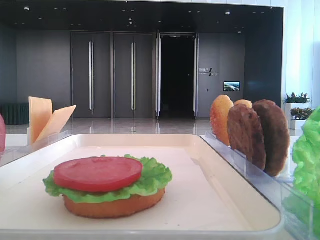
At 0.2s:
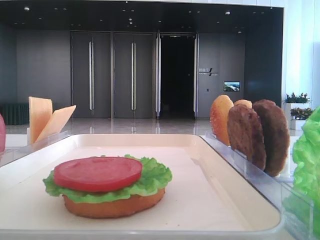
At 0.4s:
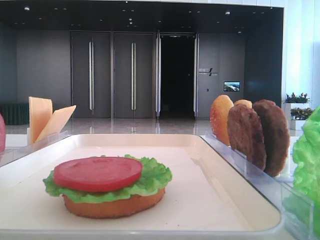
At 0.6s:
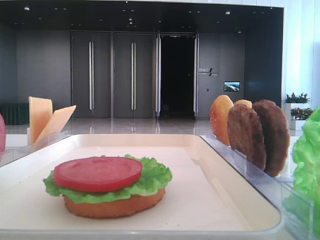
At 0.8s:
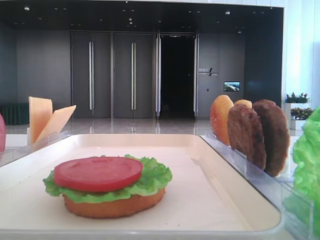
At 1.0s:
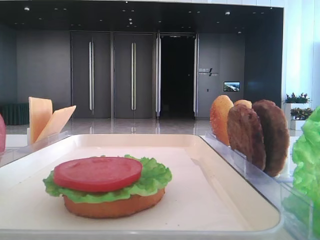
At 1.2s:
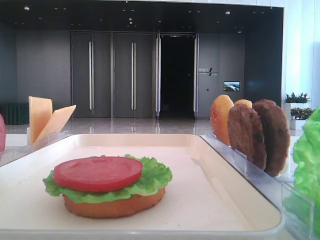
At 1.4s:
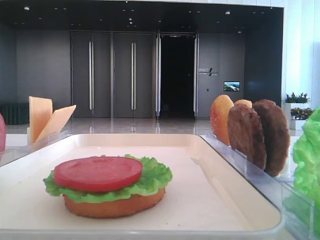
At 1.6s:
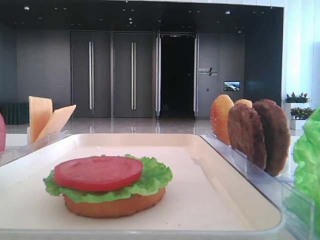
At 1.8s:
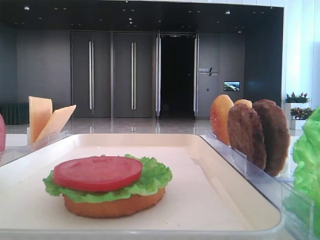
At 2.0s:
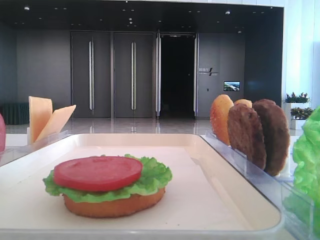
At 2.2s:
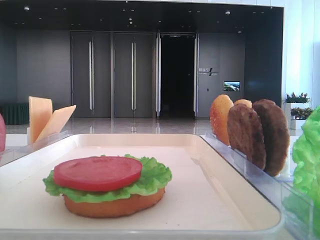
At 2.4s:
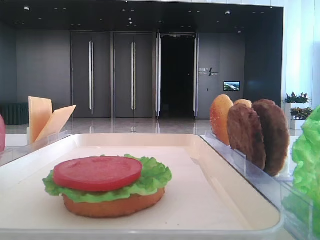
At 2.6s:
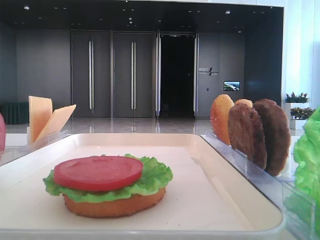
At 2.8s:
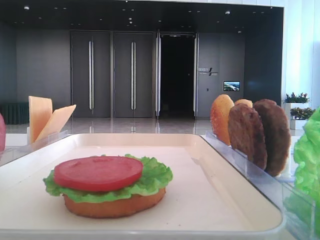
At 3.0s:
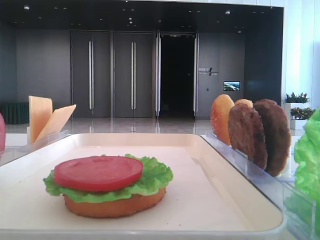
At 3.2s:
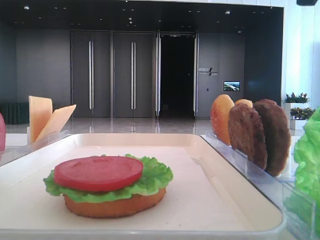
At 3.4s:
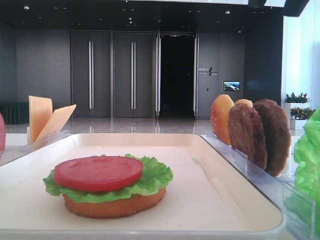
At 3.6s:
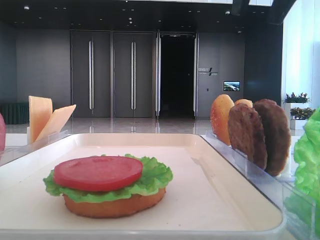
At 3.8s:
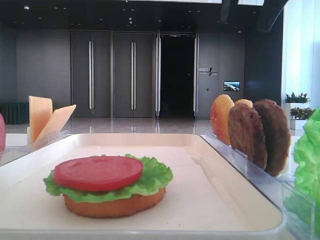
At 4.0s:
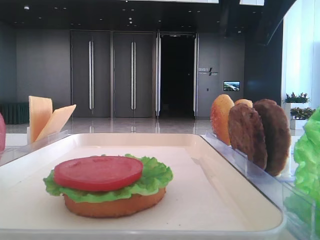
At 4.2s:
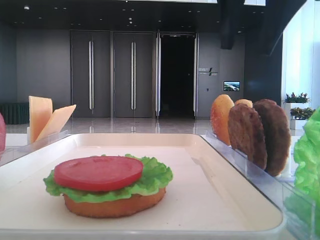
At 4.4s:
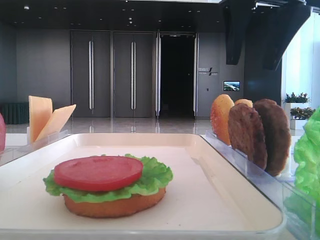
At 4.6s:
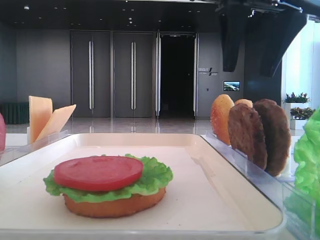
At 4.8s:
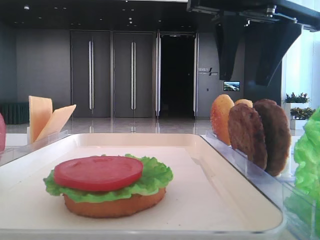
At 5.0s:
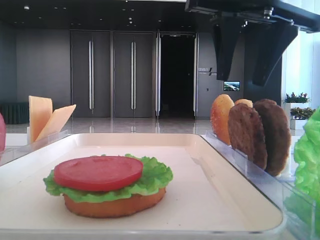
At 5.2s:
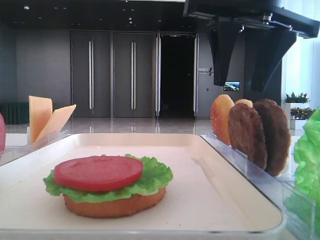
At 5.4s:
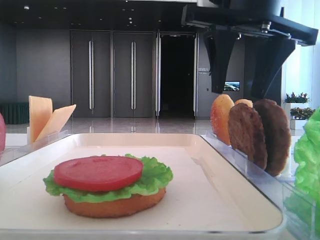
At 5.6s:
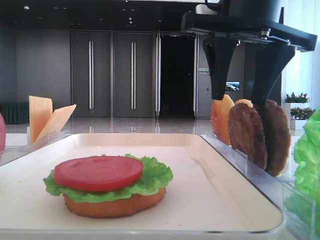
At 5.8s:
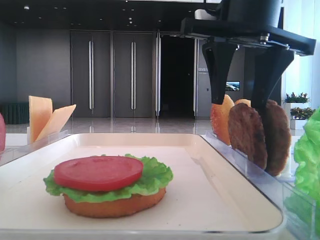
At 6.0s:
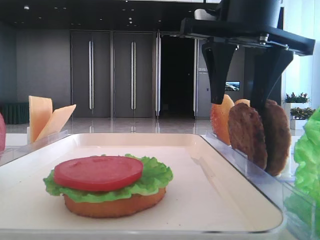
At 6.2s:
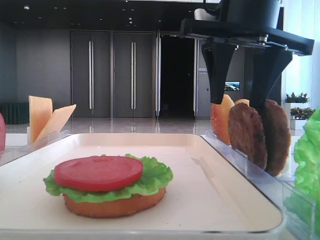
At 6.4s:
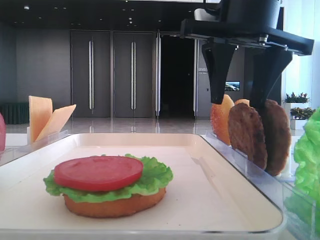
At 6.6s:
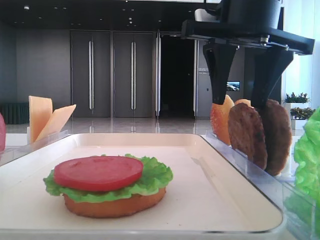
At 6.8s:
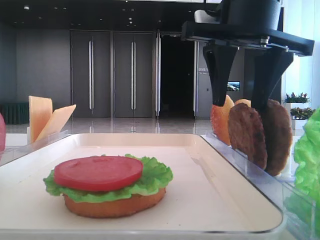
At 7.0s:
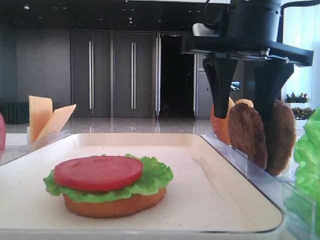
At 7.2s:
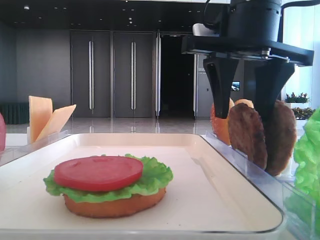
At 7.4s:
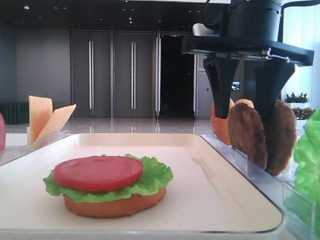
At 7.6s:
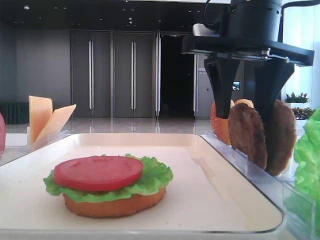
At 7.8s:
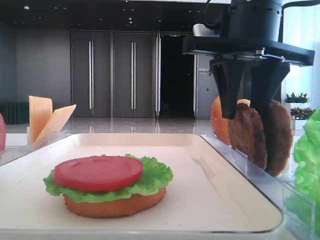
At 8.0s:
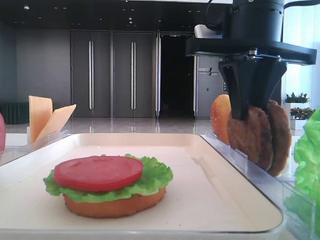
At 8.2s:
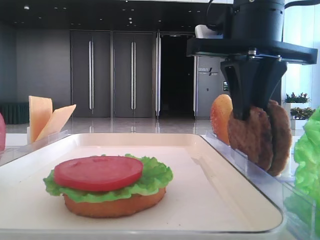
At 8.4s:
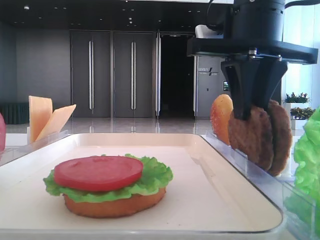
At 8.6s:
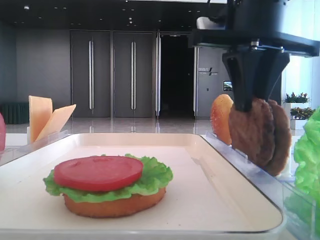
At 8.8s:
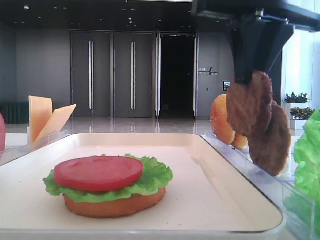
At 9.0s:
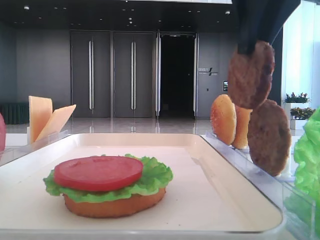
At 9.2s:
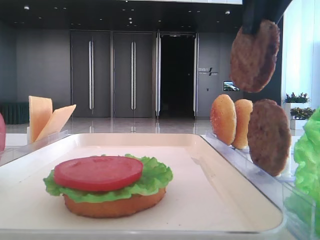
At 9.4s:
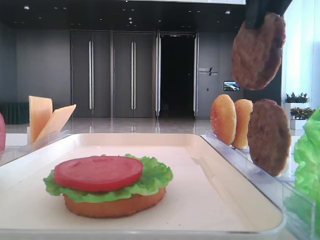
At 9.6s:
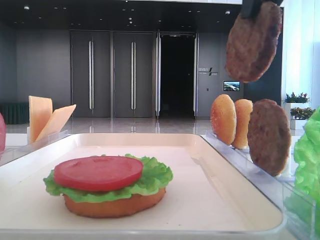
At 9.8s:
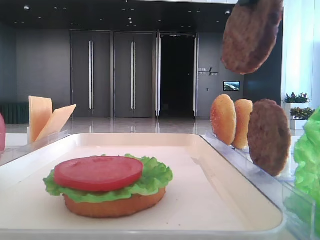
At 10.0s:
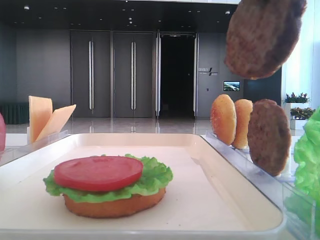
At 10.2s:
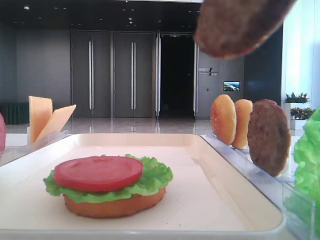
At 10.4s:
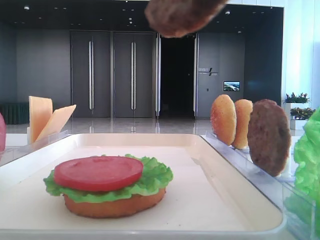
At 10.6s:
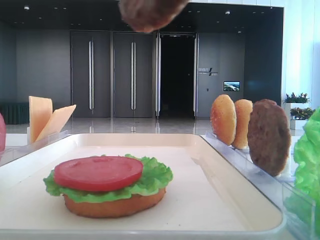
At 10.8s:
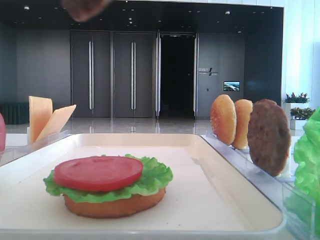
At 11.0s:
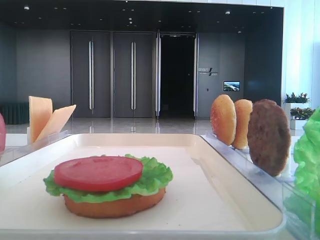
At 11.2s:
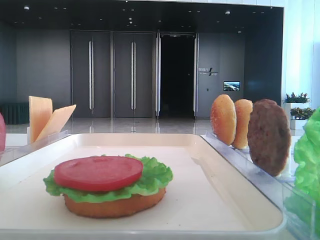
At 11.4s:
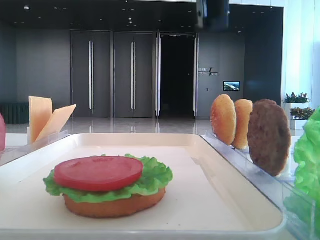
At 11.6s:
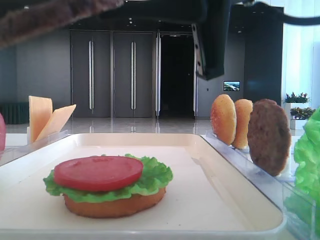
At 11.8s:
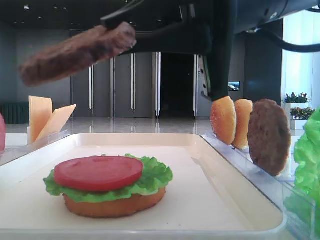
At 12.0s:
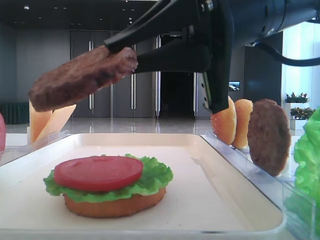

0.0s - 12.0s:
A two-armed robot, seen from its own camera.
Step, 0.0s - 8.2s: Grab the patty with the right hand.
3.0s - 4.4s: The right gripper travels forward and downward by roughly 10 cm.
4.4s - 6.0s: There are only small adjustments of the grippers.
6.0s - 7.6s: There are only small adjustments of the grippers.
7.6s - 9.0s: The right gripper shifts some 10 cm upward, and closes up.
9.0s - 10.4s: The right gripper heads backward, covering some 15 cm.
10.4s - 12.0s: The right gripper heads downward and forward, covering roughly 20 cm.

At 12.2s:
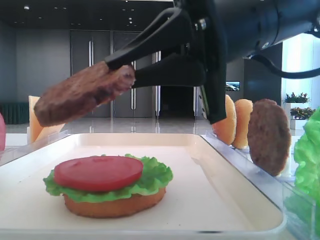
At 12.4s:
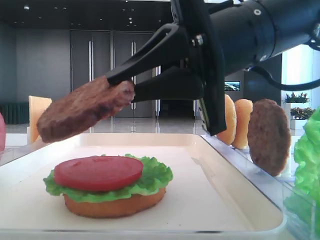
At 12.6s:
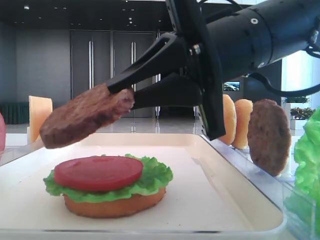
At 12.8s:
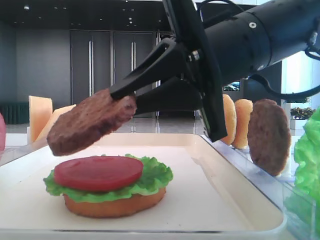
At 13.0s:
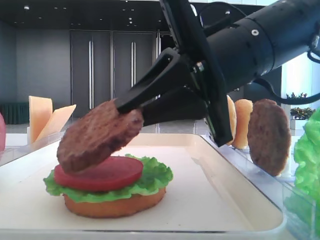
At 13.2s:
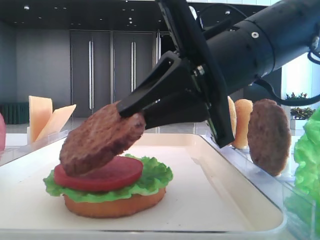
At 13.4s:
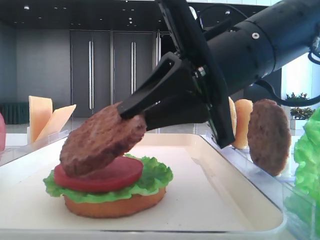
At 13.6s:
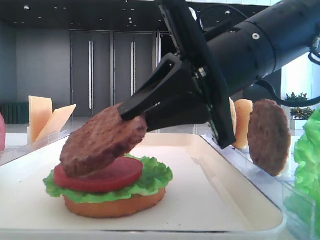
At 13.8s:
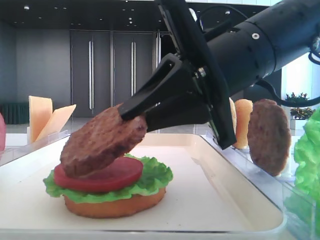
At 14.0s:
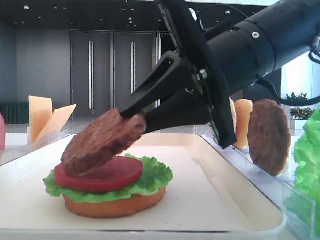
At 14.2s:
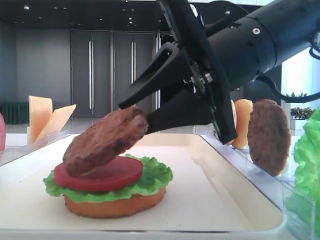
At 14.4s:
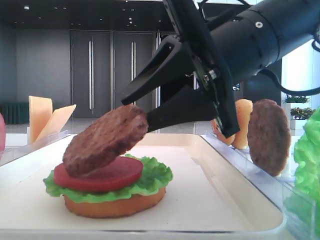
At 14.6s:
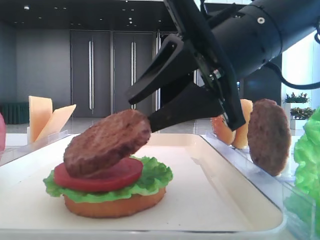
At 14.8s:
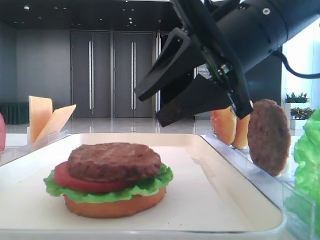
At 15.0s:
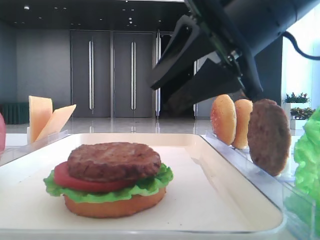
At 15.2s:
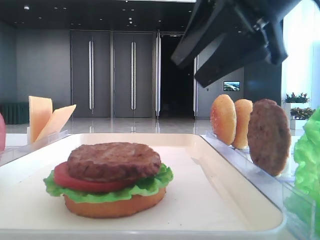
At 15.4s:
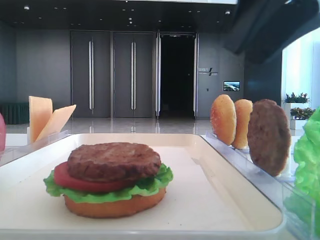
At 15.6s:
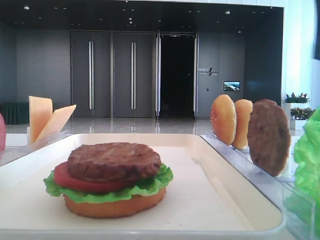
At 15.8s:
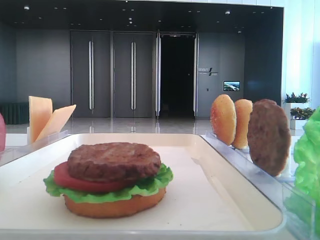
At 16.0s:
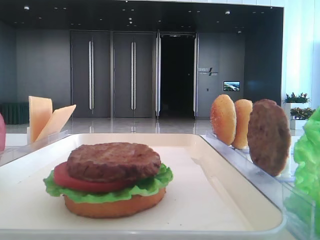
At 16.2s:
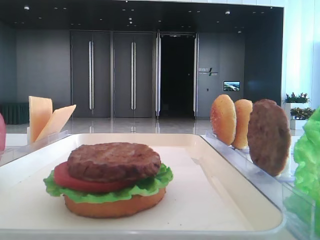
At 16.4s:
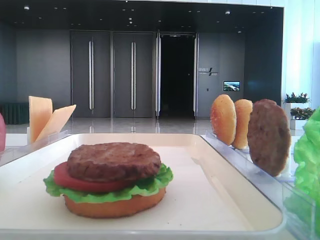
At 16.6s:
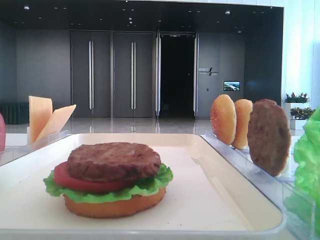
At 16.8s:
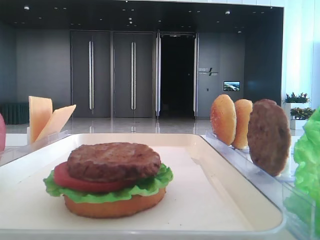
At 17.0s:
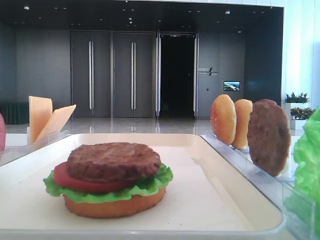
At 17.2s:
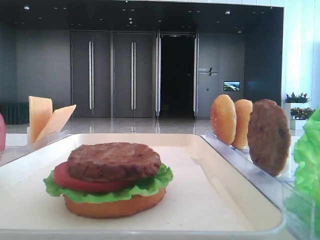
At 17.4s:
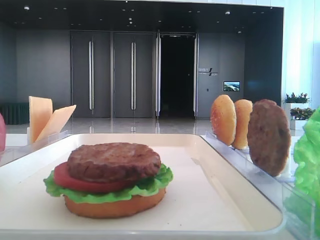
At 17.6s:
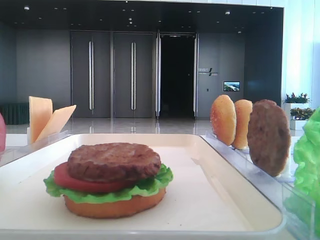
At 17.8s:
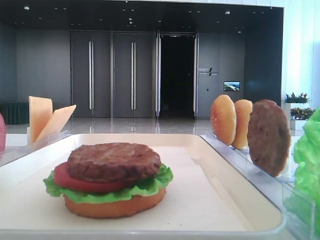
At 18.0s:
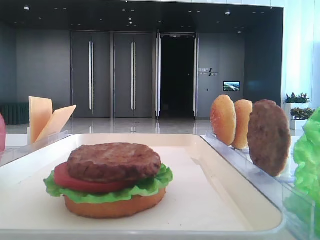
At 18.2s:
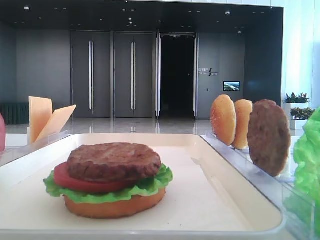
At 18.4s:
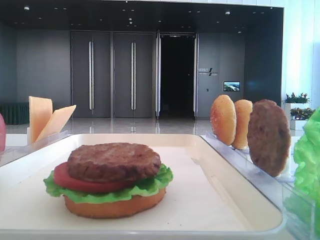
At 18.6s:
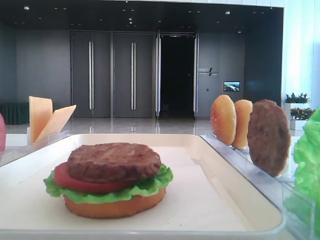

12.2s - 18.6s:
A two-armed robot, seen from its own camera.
Step, 12.2s - 14.6s: Place the patty on the tomato slice with the right hand.
12.2s - 13.8s: The left gripper closes up.
13.8s - 15.4s: The right gripper is displaced upward and to the right by roughly 15 cm, and opens its fingers.
15.4s - 17.0s: The right gripper shifts about 15 cm to the right and backward.

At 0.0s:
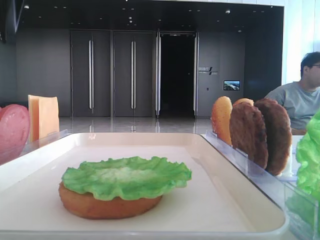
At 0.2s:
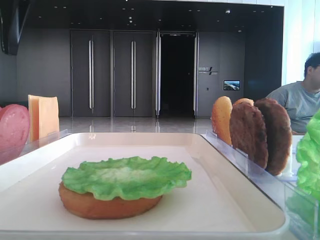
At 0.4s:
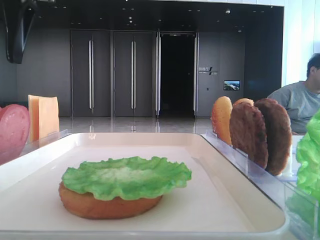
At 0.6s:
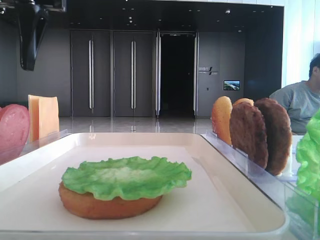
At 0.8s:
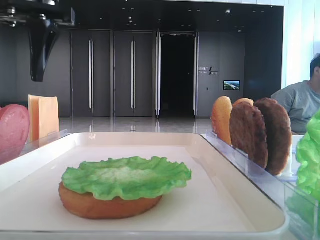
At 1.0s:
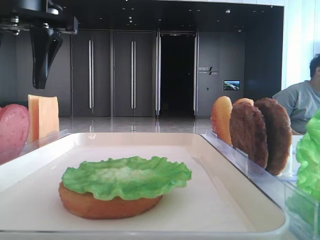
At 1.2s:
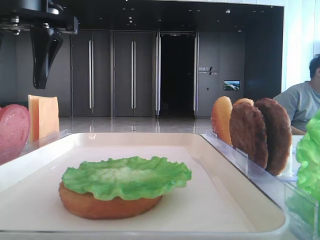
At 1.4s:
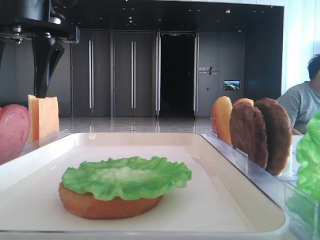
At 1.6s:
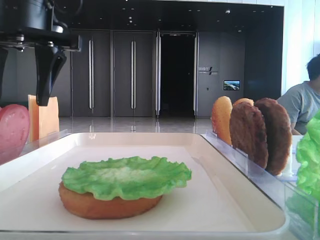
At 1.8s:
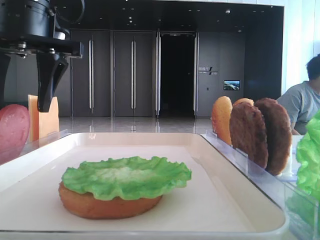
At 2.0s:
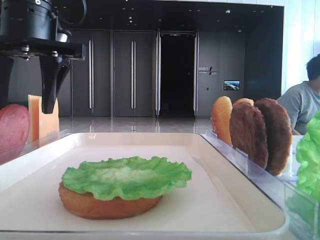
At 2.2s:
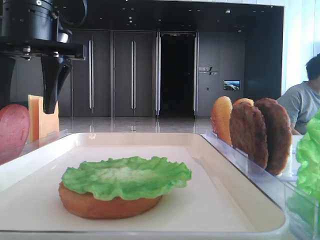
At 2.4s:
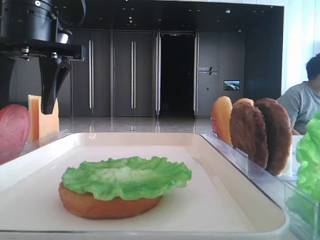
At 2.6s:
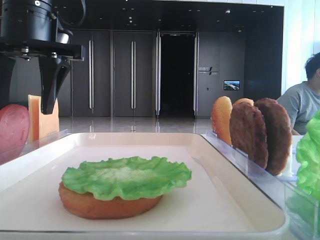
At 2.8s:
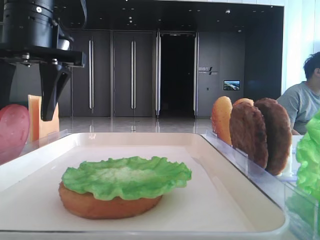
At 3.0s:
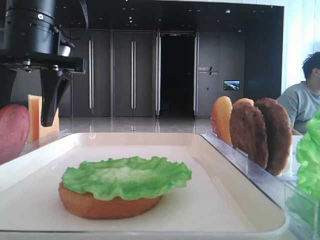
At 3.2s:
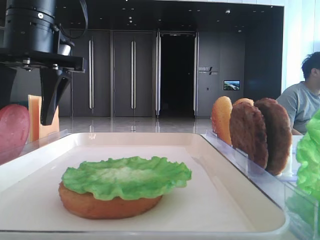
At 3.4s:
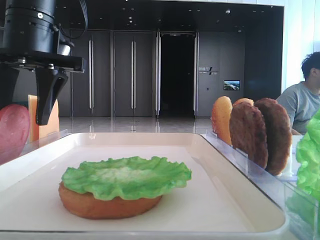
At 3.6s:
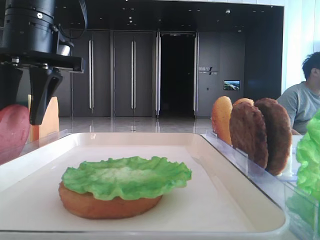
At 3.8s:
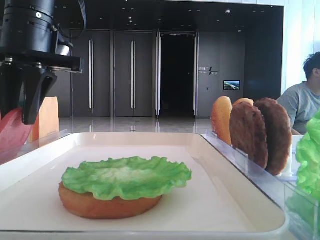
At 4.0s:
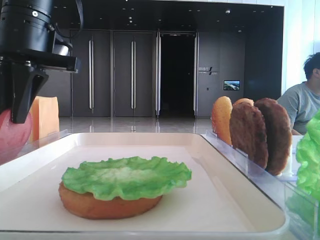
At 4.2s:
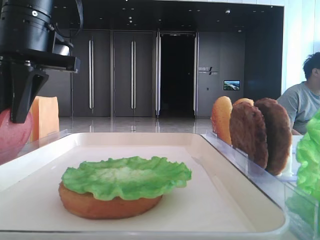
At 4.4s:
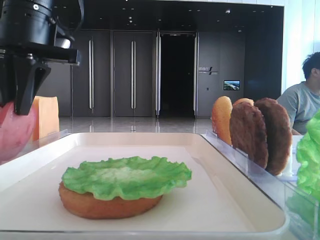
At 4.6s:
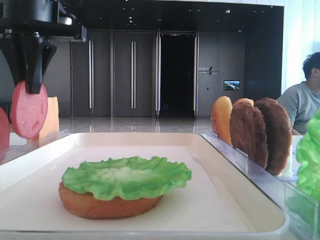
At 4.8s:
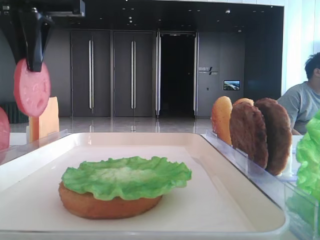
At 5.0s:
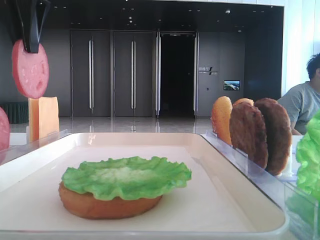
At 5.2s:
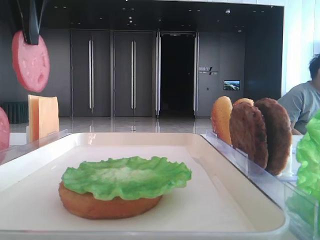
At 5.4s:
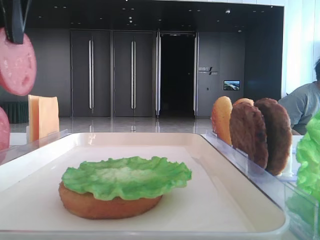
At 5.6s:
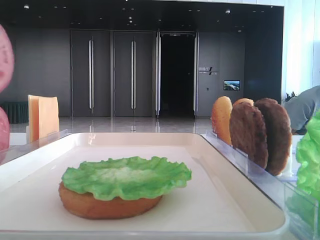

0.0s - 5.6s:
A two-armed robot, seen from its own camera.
Step, 0.0s - 4.0s: Pick up the tomato slice with the left hand.
0.0s - 1.4s: The left gripper travels downward by approximately 5 cm.
1.4s - 2.8s: The grippers stay close to where they were, moving slightly.
2.8s - 4.2s: The left gripper closes its fingers.
4.2s - 5.6s: The left gripper moves upward and backward, roughly 10 cm.
